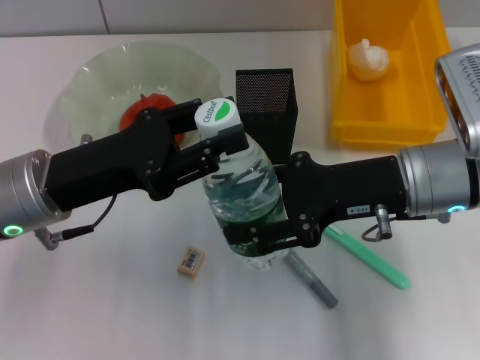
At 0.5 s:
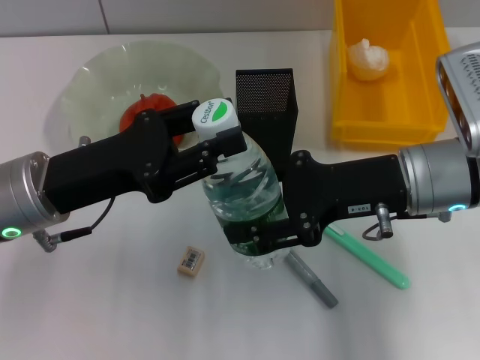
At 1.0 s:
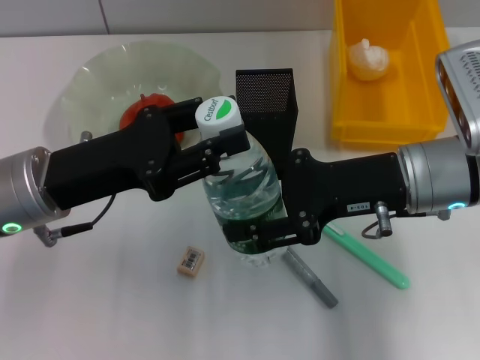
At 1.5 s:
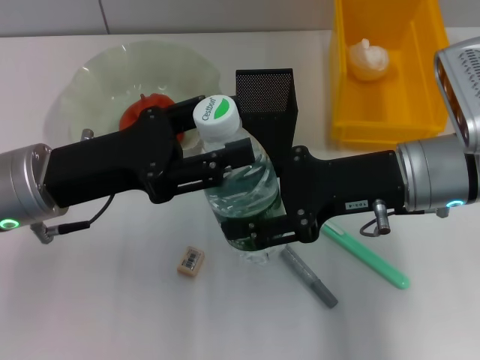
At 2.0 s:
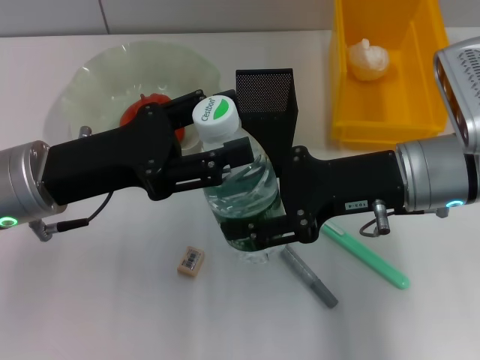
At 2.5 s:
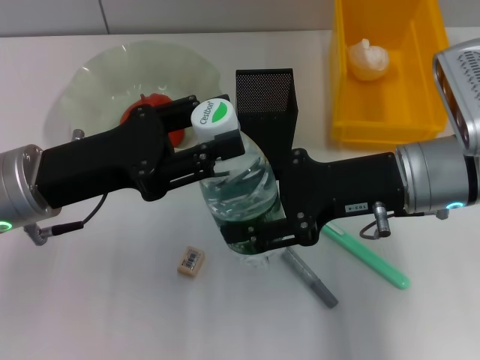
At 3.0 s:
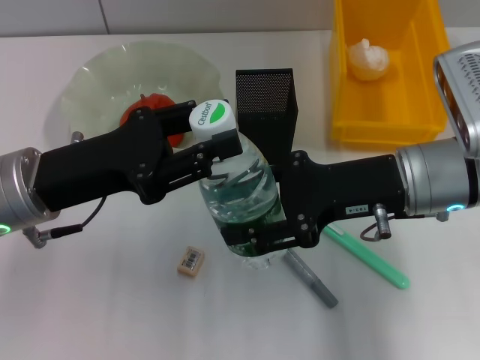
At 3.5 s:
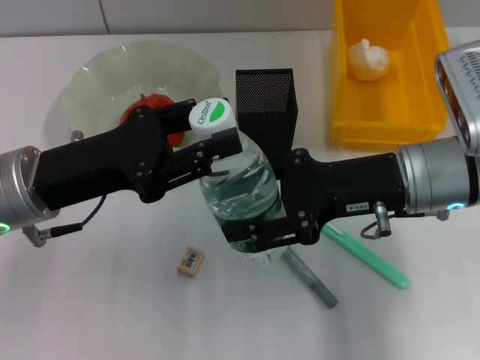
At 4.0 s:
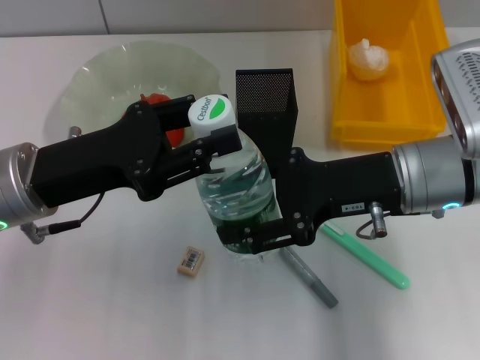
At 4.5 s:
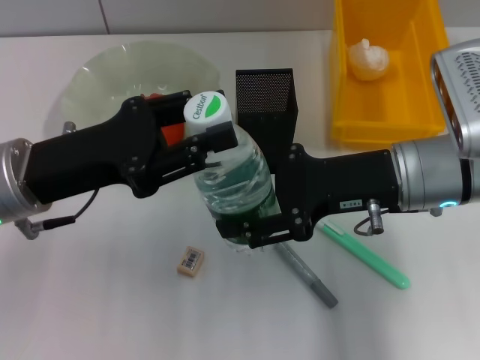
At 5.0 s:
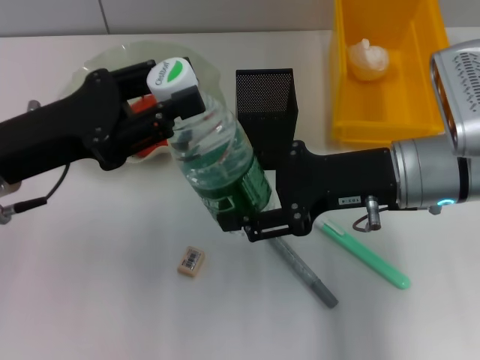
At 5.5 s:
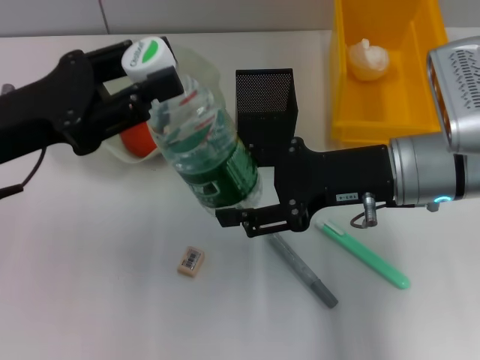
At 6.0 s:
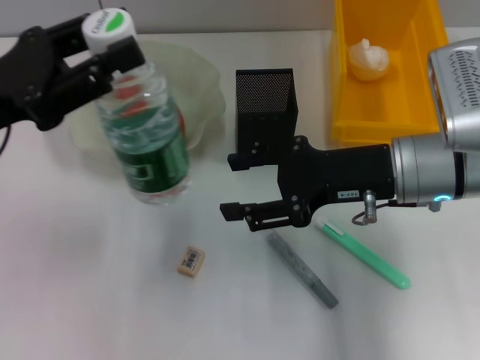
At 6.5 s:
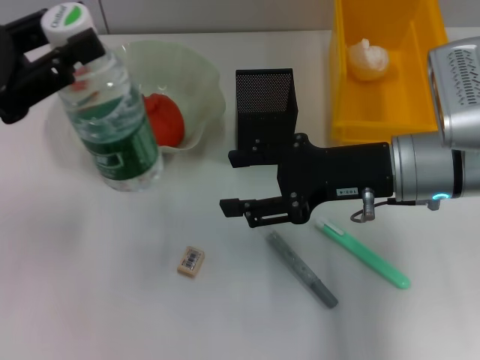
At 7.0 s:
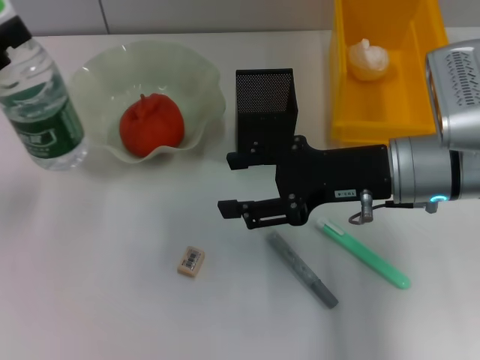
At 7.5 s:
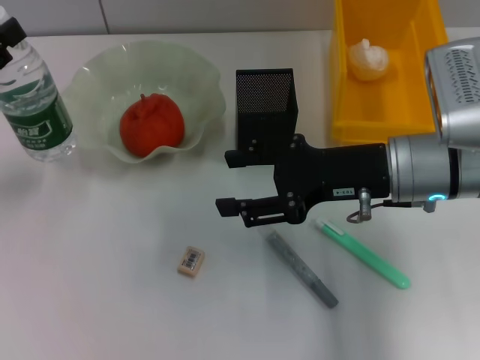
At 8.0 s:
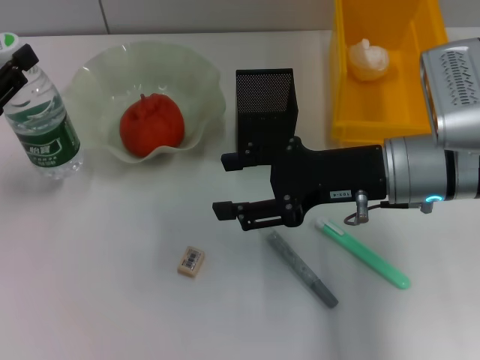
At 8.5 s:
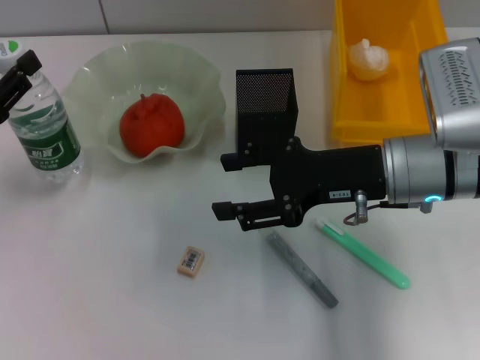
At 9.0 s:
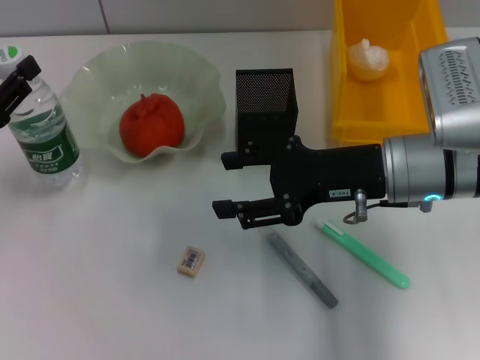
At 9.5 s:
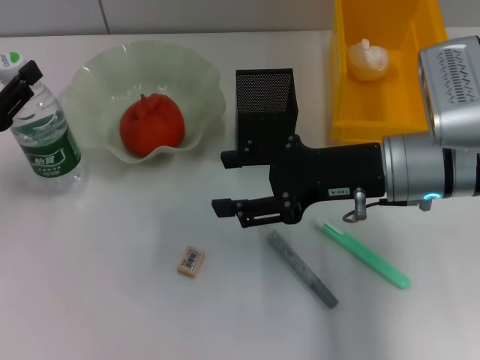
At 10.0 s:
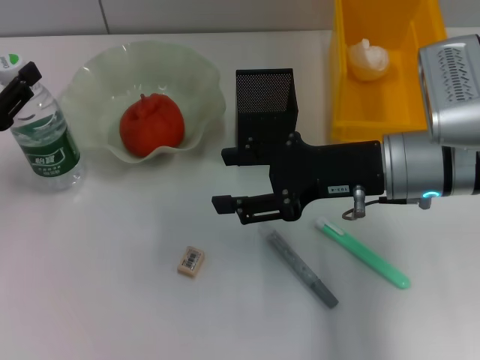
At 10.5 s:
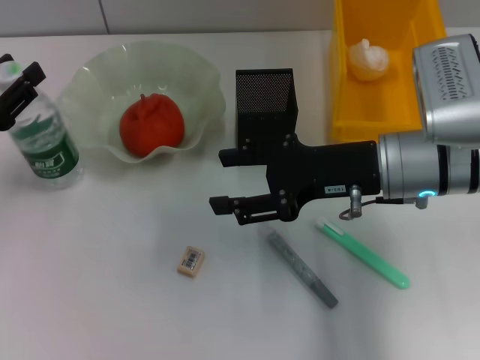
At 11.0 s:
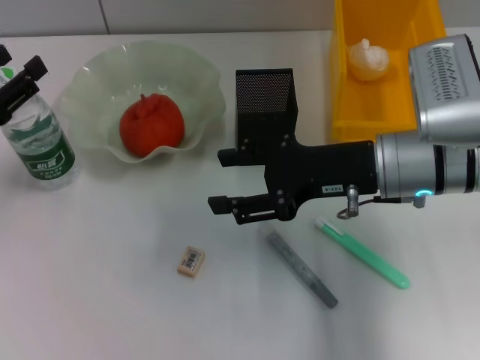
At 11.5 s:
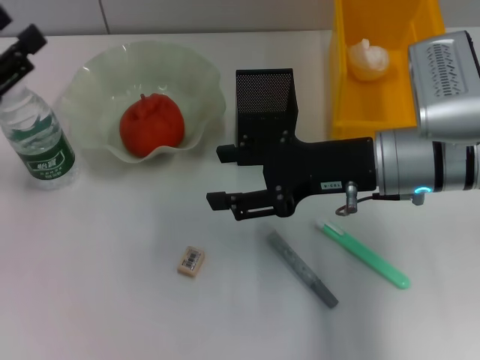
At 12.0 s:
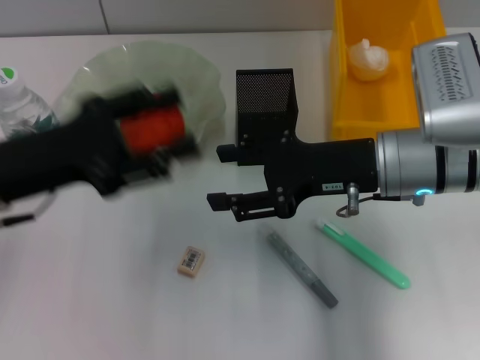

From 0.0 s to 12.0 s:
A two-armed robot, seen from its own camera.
Step, from 0.0 s to 5.0 s: Pass the water bottle from the right hand to the left hand.
Step, from 5.5 s to 10.5 s: Place the water bottle on the table with the left hand.
From 0.0 s to 2.0 s: The left gripper opens.
From 2.0 s to 4.0 s: The left gripper closes.
From 4.0 s to 6.0 s: The left gripper is displaced to the left by about 5 cm.
From 6.0 s to 8.0 s: The left gripper goes approximately 10 cm to the left and downward.
From 8.0 s to 10.0 s: The grippers move only a little.
From 10.0 s to 12.0 s: The left gripper heads to the right, covering some 10 cm, and opens its fingers.

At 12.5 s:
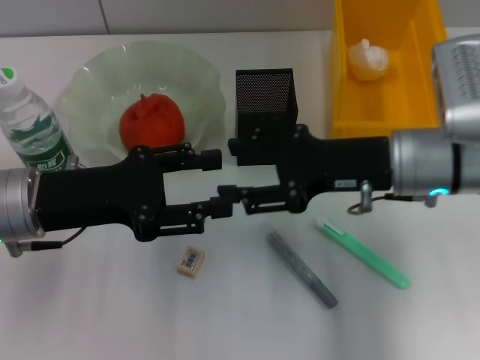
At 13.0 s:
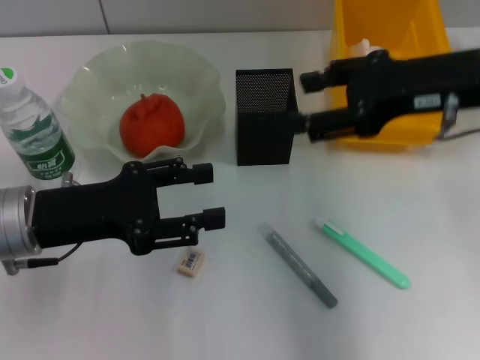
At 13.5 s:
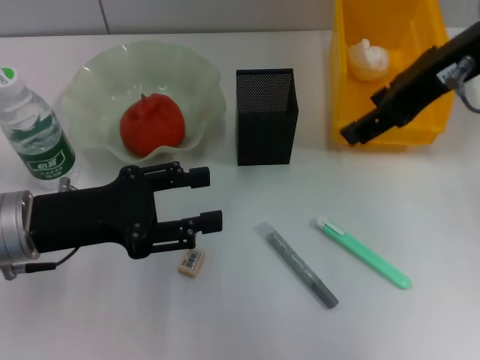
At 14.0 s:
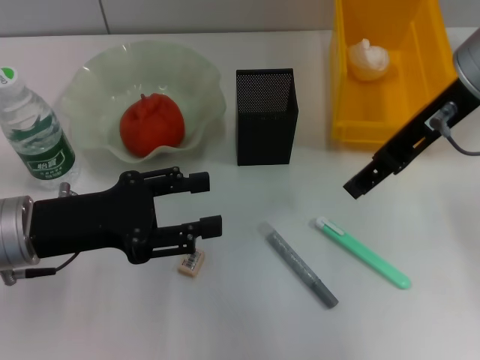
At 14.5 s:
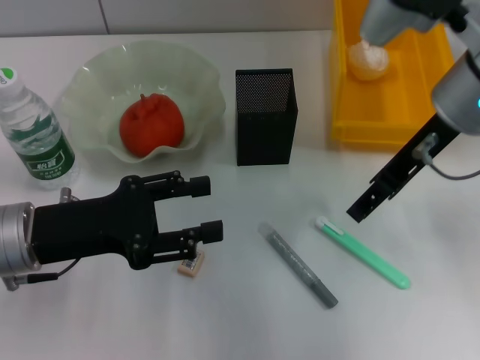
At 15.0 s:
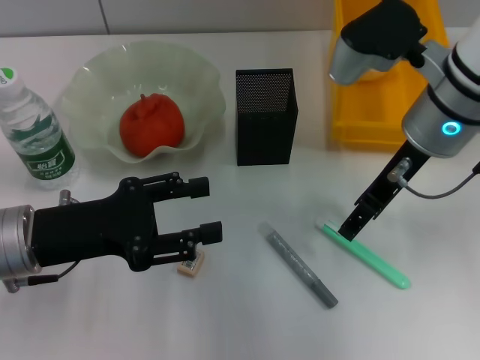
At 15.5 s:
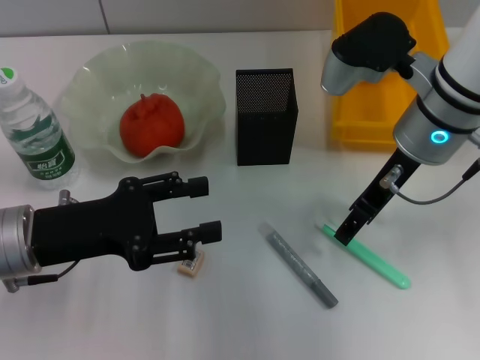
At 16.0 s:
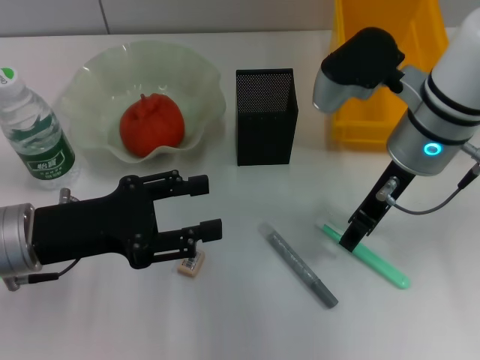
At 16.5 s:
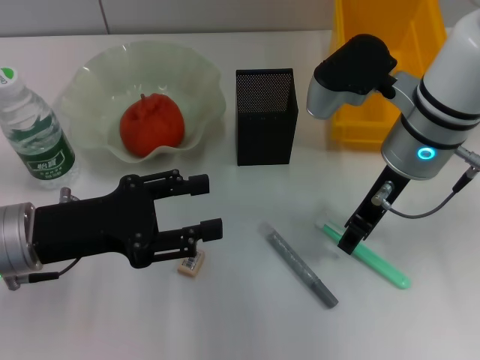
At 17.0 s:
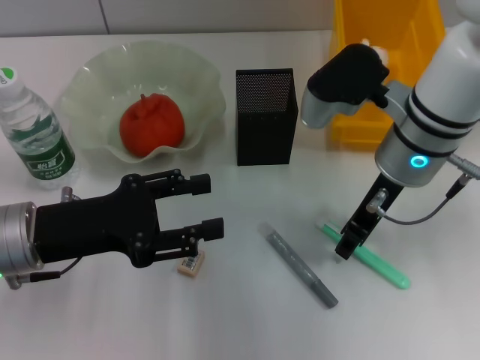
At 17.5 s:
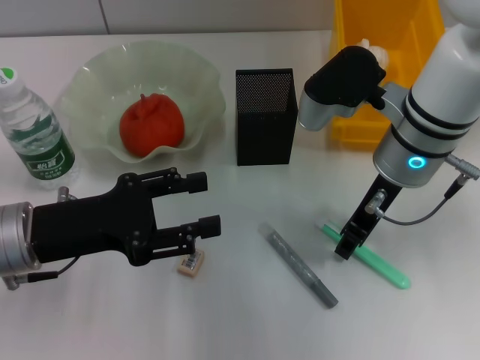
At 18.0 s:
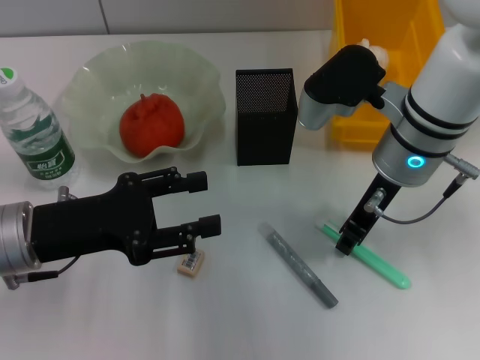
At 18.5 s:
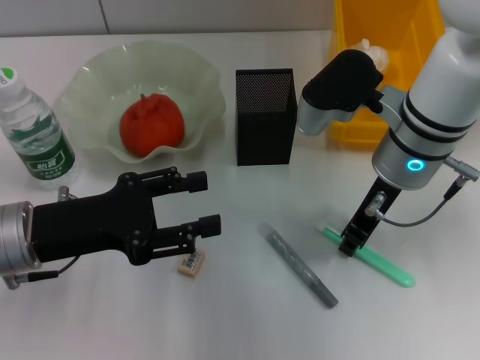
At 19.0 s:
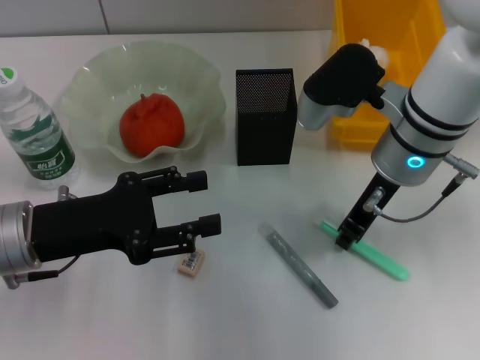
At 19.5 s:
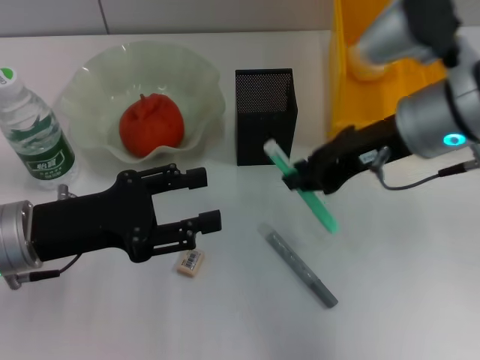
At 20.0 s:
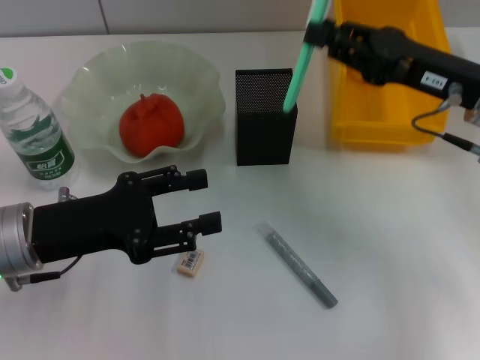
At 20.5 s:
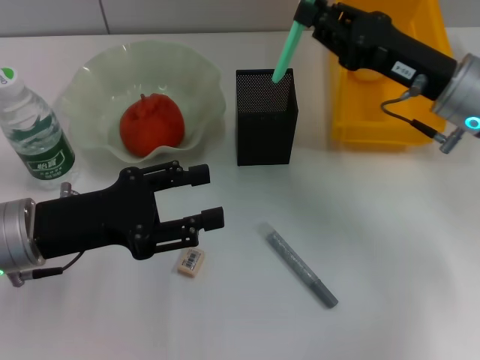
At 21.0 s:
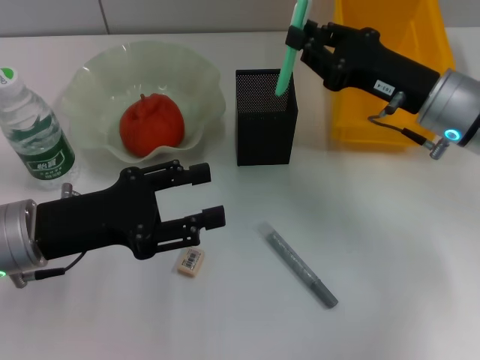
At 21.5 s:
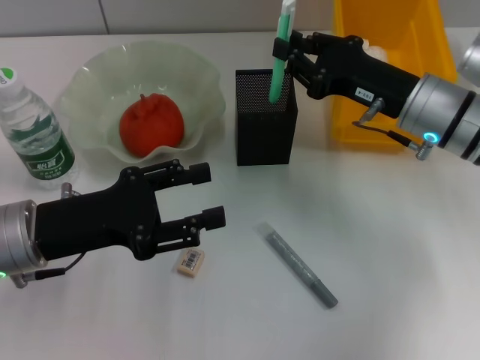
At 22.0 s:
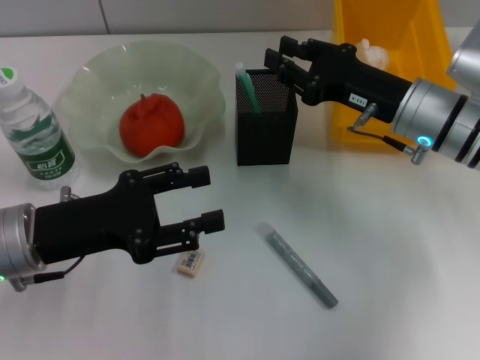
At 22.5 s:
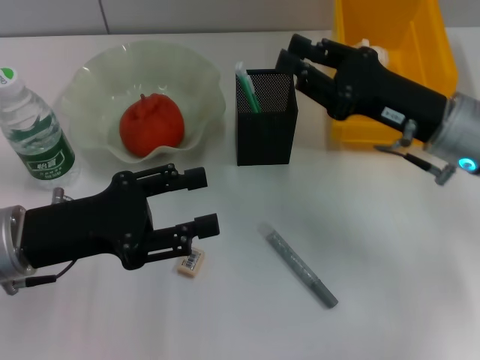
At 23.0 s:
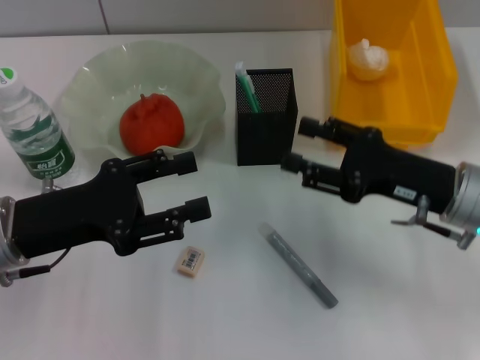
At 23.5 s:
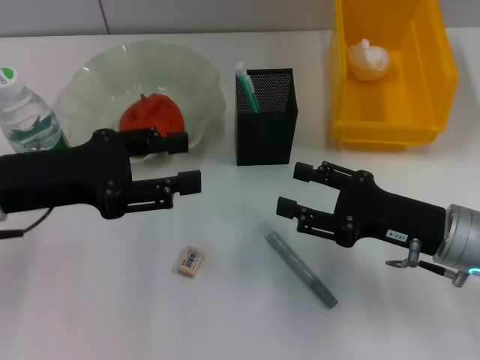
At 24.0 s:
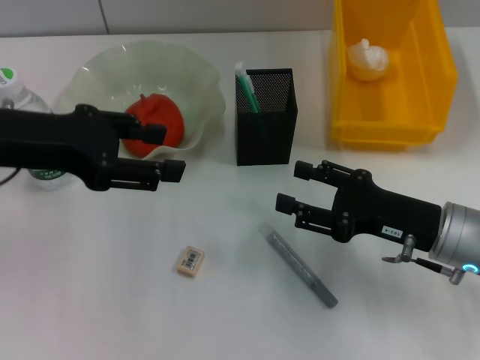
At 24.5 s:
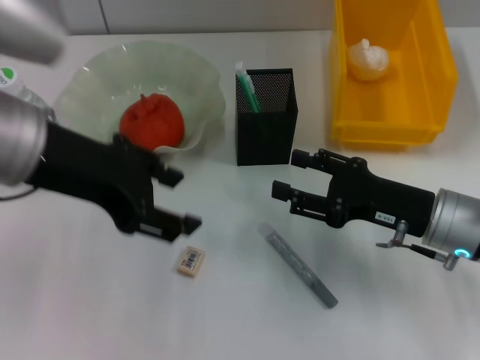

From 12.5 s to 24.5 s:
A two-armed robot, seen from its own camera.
Step, from 12.5 s to 18.5 s: Grab the blue utility knife with the right hand.
Step, from 19.0 s to 21.5 s: Place the blue utility knife into the pen holder with the right hand.
From 12.5 s to 14.5 s: The right gripper goes about 10 cm upward.
From 14.5 s to 16.5 s: The right gripper moves downward, some 5 cm, and closes its fingers.
From 16.5 s to 18.5 s: The right gripper closes up.
From 18.5 s to 20.5 s: The right gripper is displaced to the right by some 10 cm.
From 20.5 s to 22.5 s: There are only small adjustments of the grippers.
From 22.5 s to 24.5 s: The right gripper moves downward, some 5 cm, and opens its fingers. Meanwhile the left gripper travels upward and to the right by some 15 cm.

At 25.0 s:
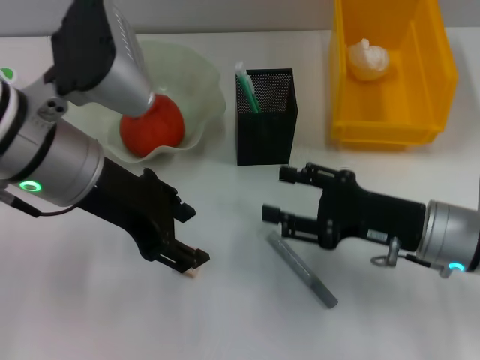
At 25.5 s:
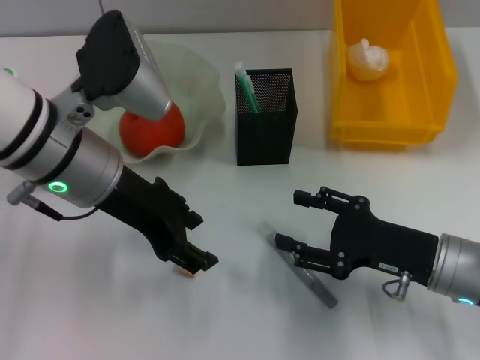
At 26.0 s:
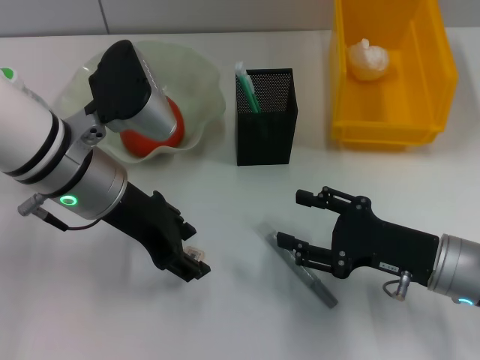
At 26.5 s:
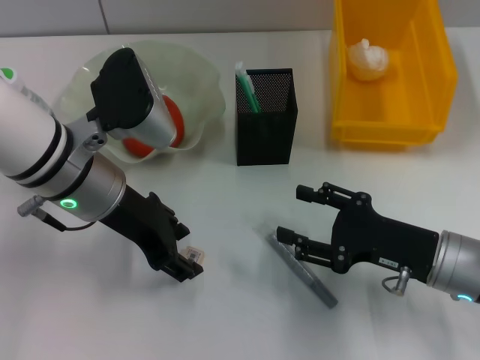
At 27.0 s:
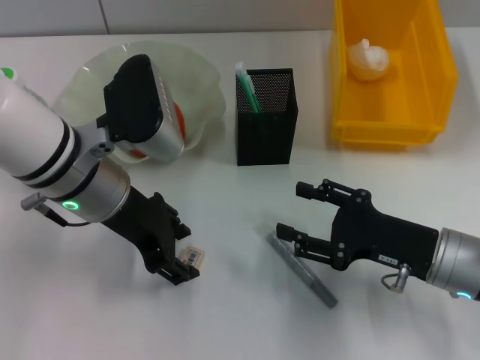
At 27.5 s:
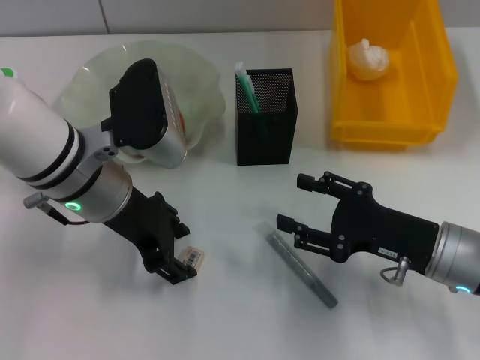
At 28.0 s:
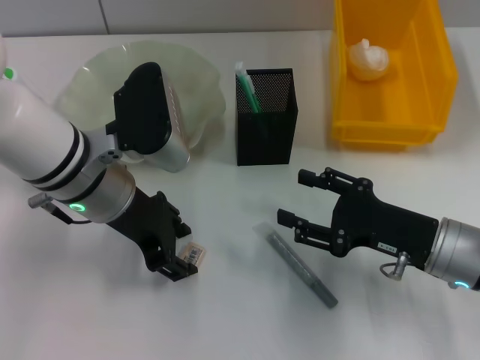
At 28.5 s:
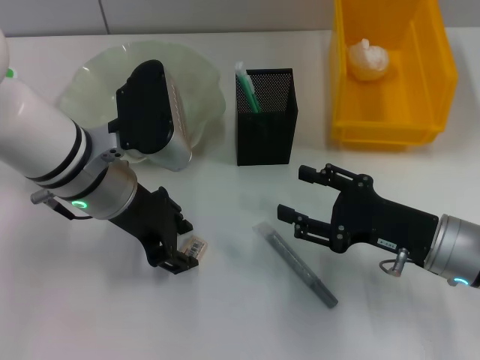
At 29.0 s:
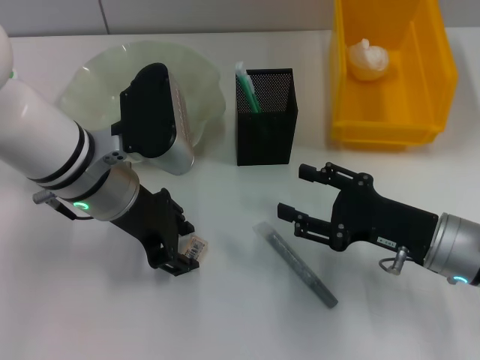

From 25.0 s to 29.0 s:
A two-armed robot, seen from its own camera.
From 25.0 s to 27.0 s: The left gripper is displaced downward by approximately 5 cm.
From 27.0 s to 29.0 s: The grippers make only small movements.
